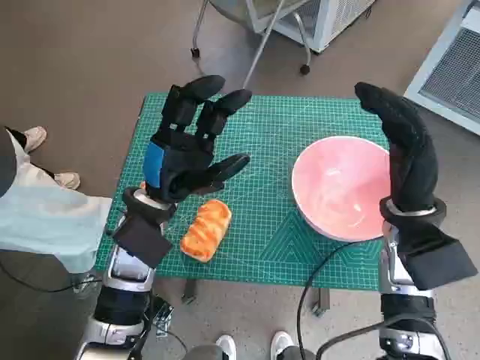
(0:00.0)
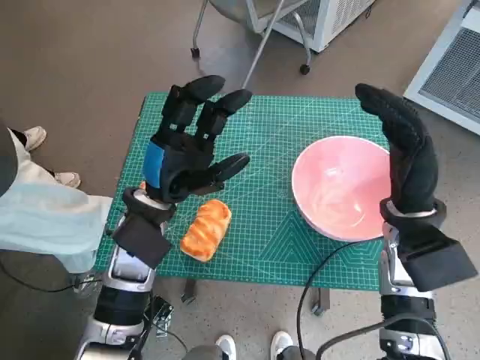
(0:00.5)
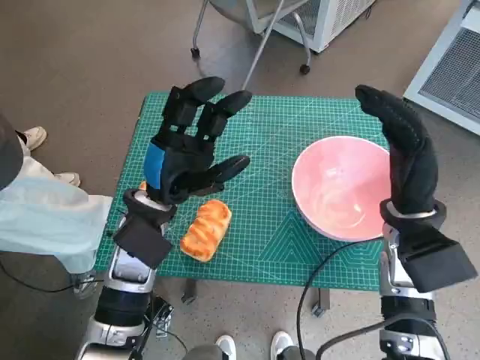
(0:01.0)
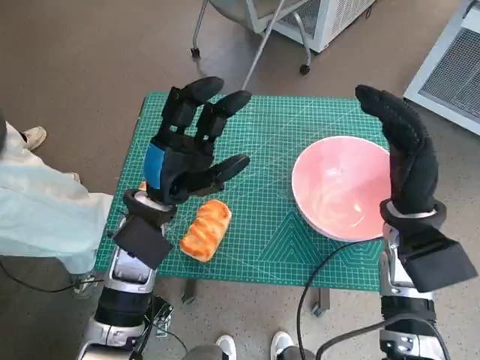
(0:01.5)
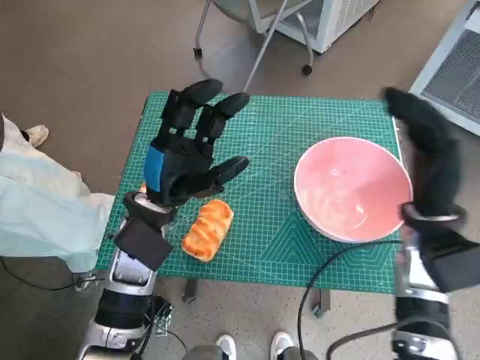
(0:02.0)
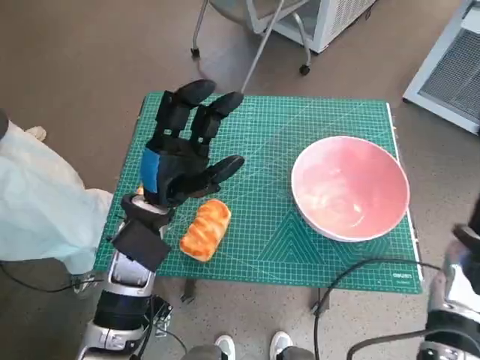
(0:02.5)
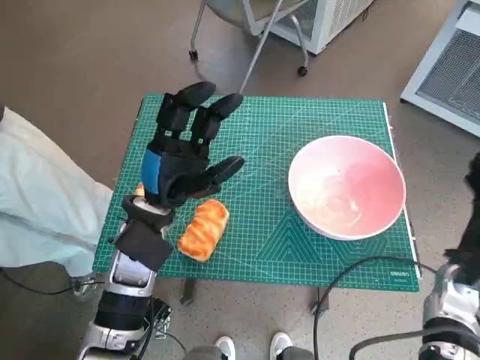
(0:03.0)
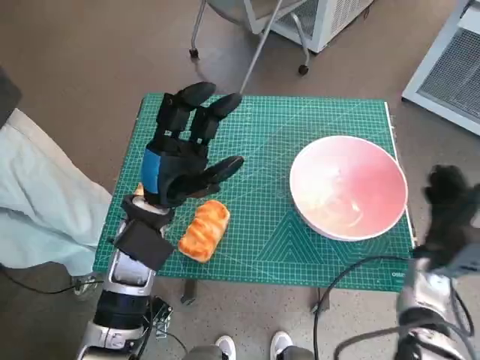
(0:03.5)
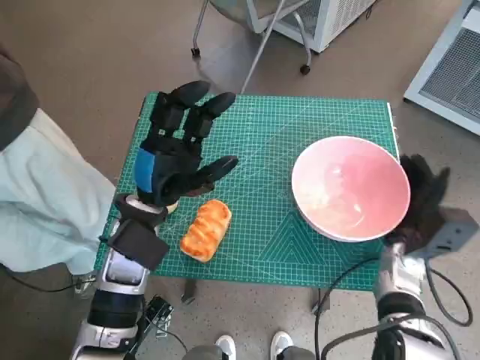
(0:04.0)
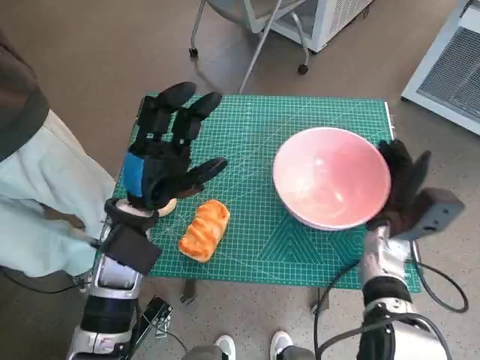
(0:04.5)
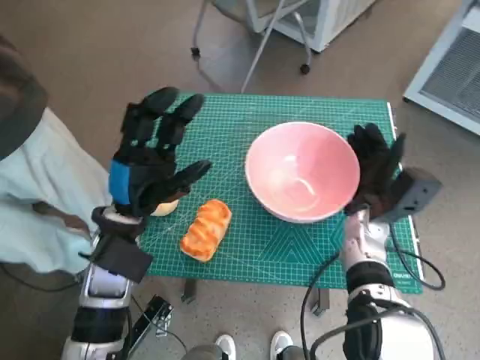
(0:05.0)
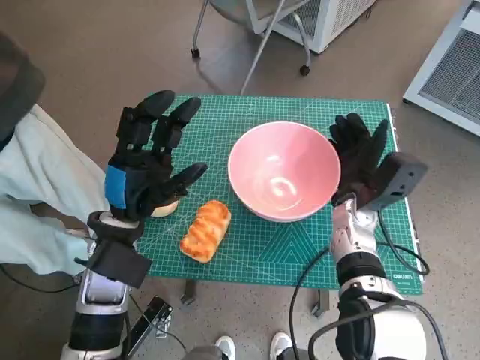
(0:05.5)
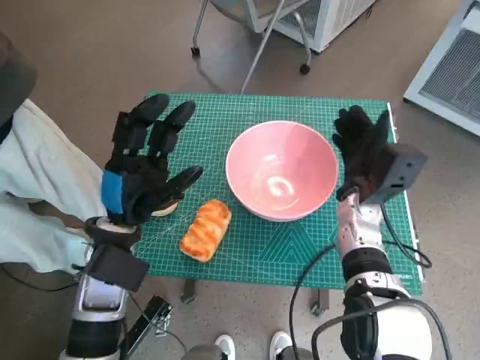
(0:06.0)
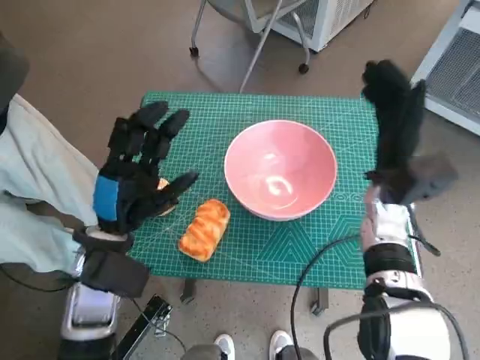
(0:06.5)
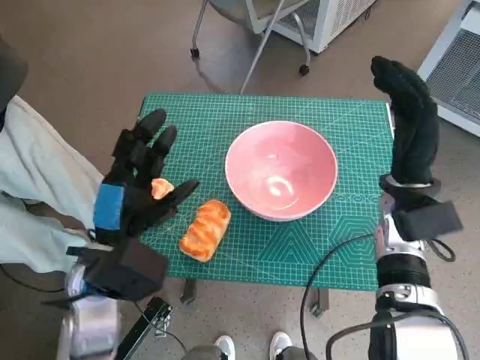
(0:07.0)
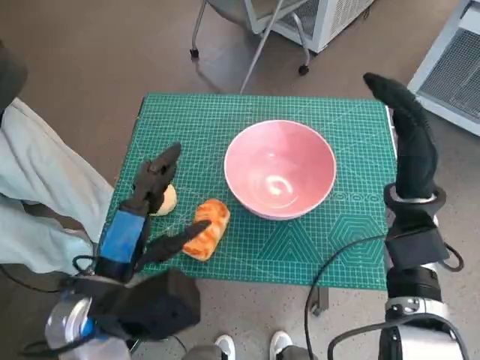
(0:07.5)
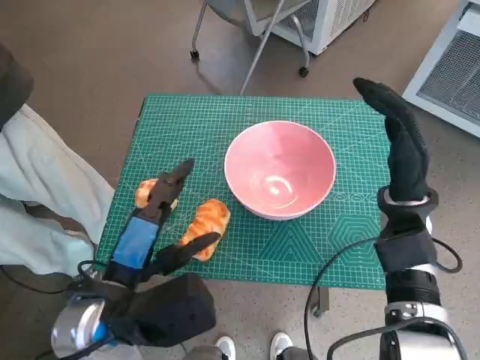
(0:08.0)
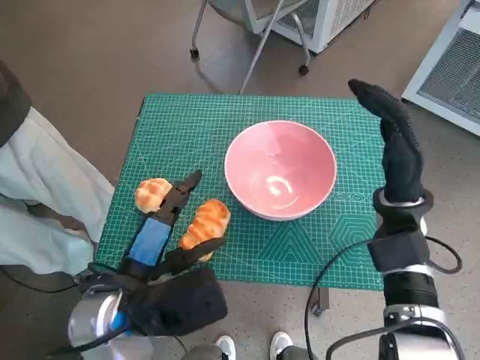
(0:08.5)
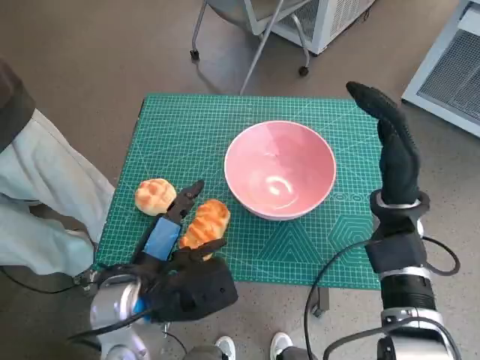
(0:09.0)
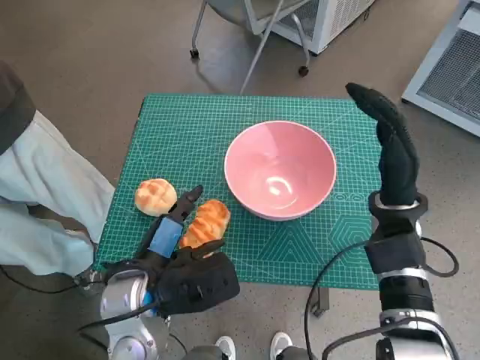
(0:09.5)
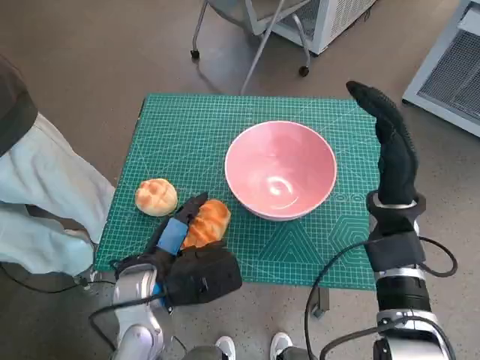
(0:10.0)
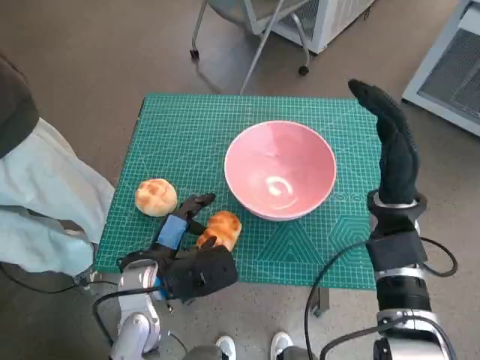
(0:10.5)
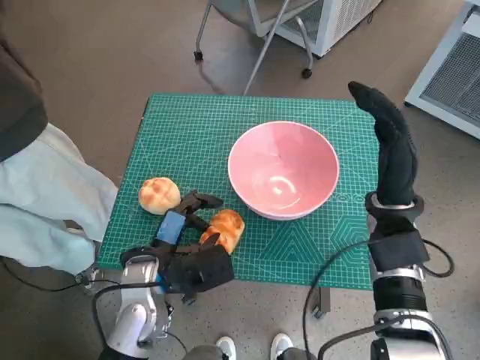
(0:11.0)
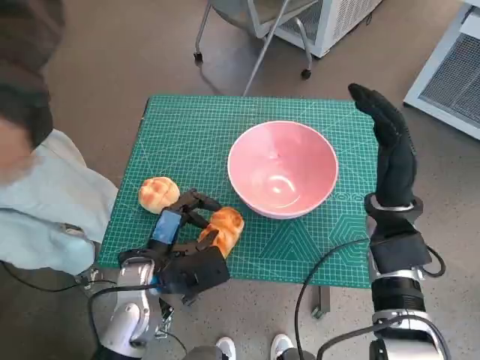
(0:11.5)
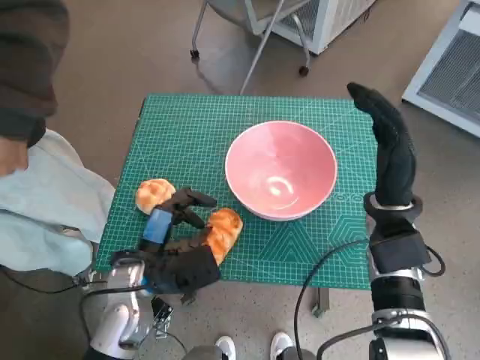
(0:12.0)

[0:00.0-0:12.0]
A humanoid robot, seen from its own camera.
Task of the whole recording: Push the bowl to the center of the table and put the bread into the bowl.
Step, 0:00.0 to 0:05.5: Move the pink bowl to the center of table with right hand.
0:02.0 to 0:04.0: The right hand travels downward by approximately 10 cm.
0:04.0 to 0:06.0: The right hand goes approximately 10 cm to the left, upward and forward.
0:06.0 to 0:08.0: The right hand moves approximately 5 cm. Meanwhile the left hand heads backward, covering roughly 10 cm.
0:08.0 to 0:10.0: The left hand goes roughly 5 cm downward.
0:10.0 to 0:12.0: The left hand moves roughly 5 cm.

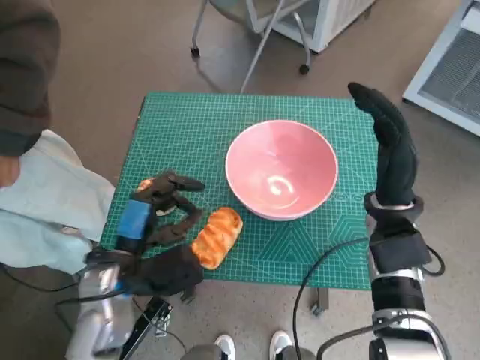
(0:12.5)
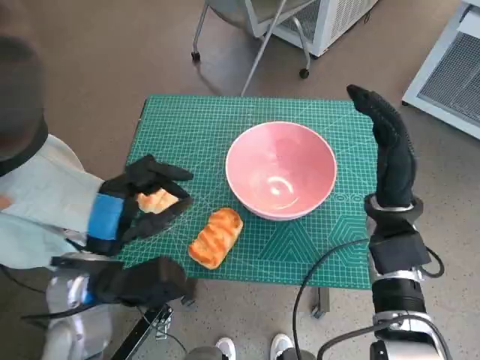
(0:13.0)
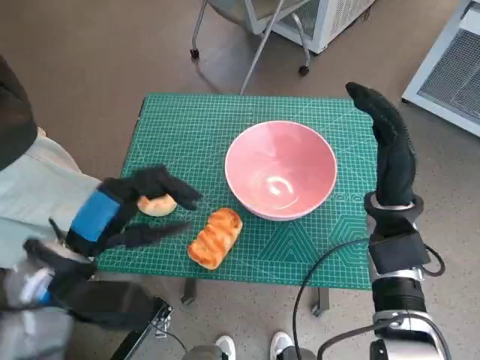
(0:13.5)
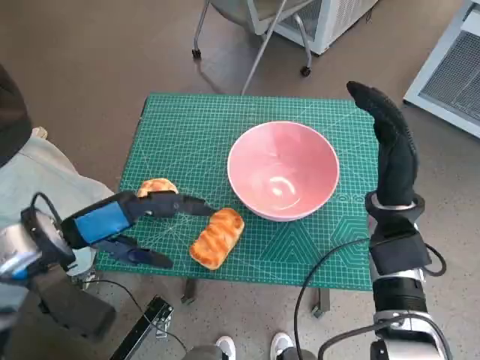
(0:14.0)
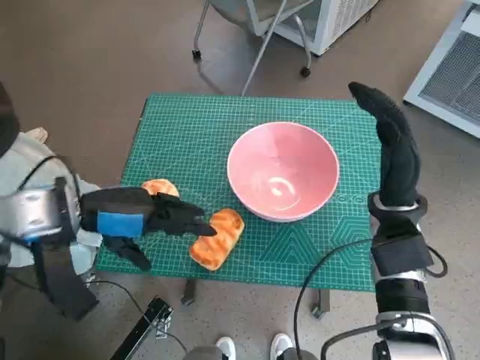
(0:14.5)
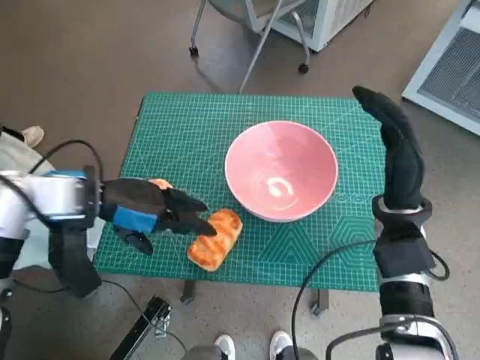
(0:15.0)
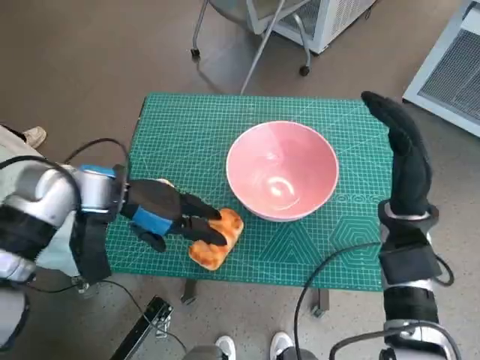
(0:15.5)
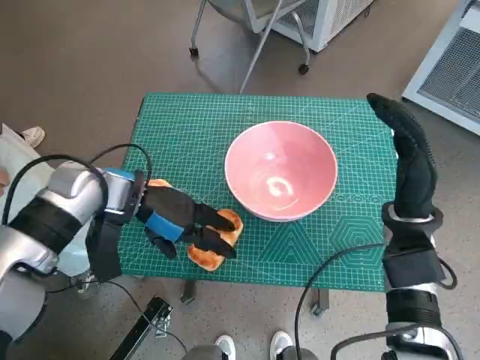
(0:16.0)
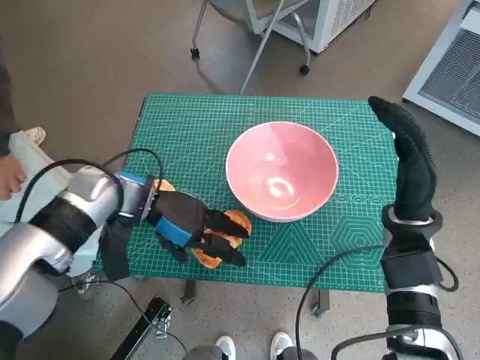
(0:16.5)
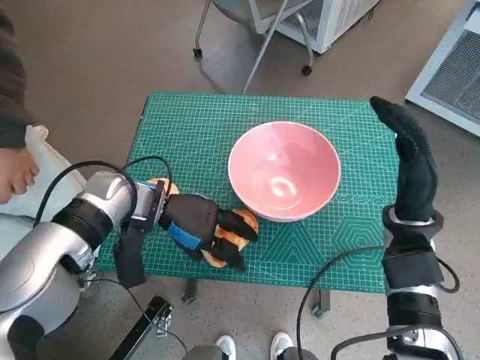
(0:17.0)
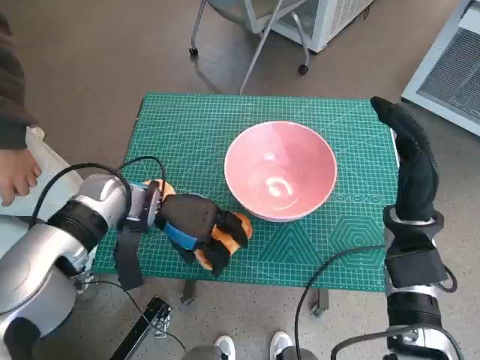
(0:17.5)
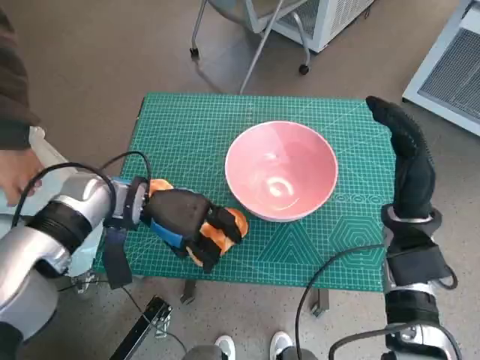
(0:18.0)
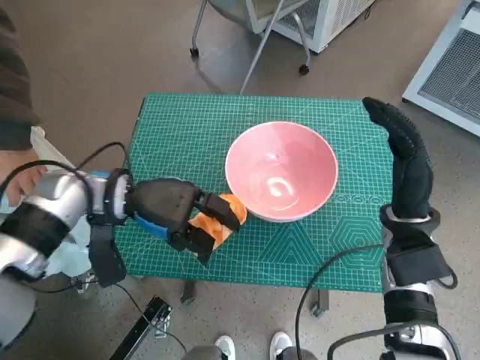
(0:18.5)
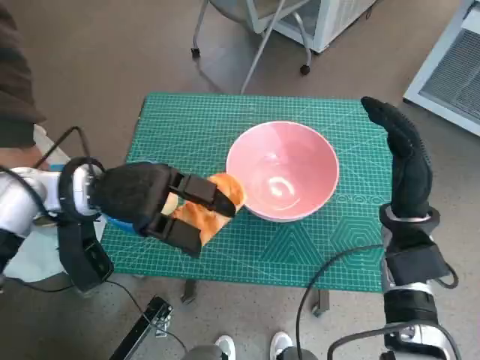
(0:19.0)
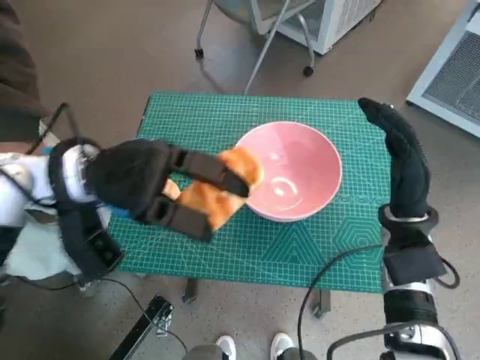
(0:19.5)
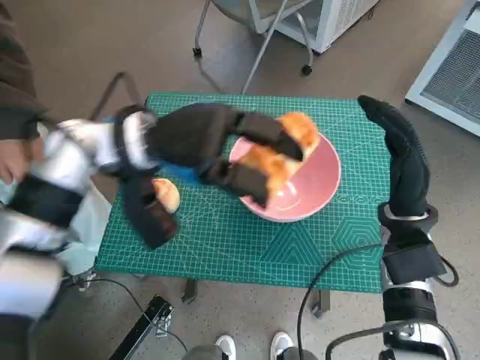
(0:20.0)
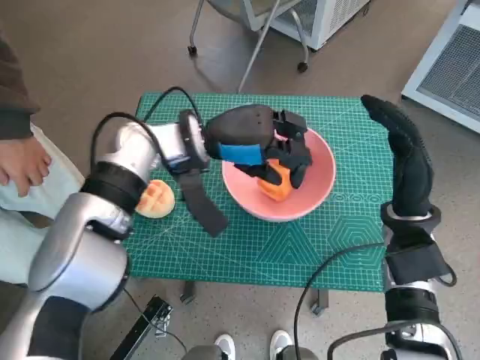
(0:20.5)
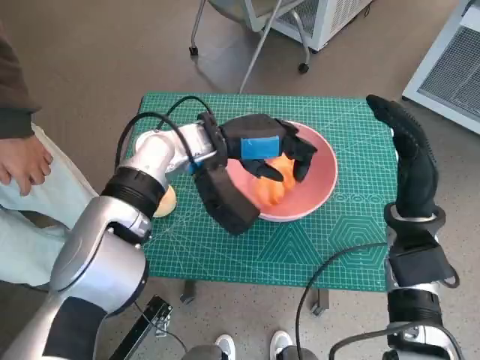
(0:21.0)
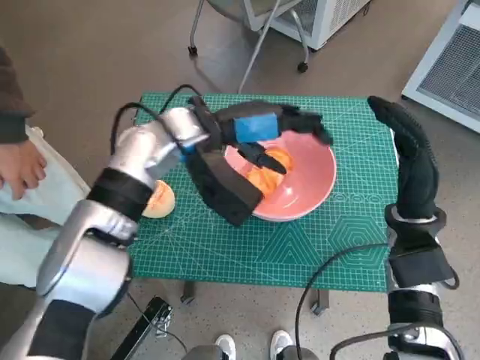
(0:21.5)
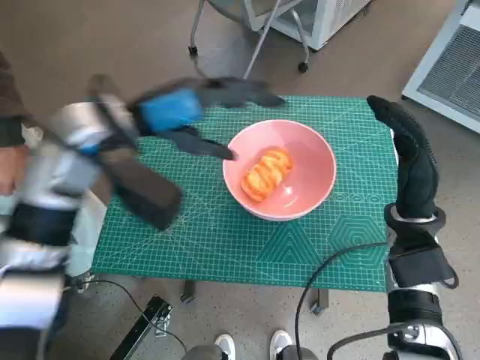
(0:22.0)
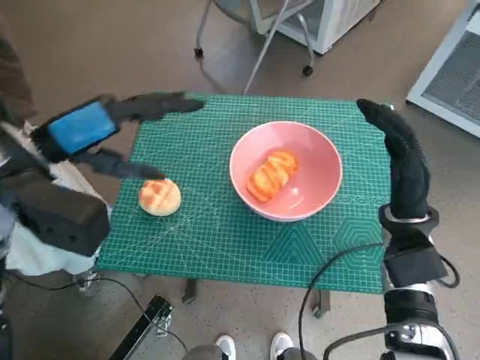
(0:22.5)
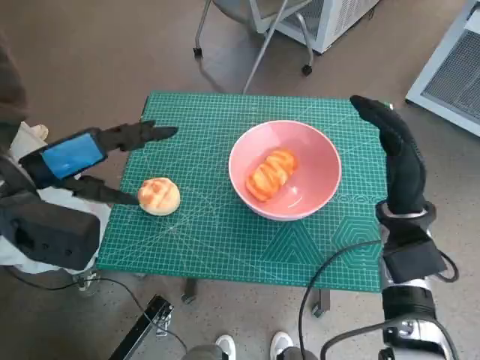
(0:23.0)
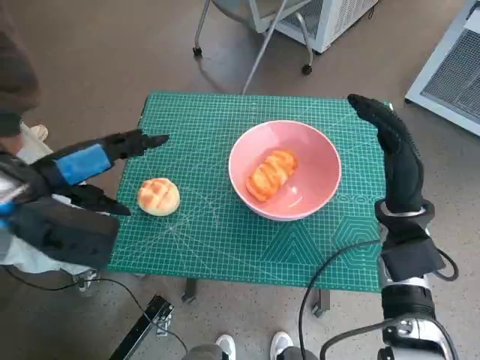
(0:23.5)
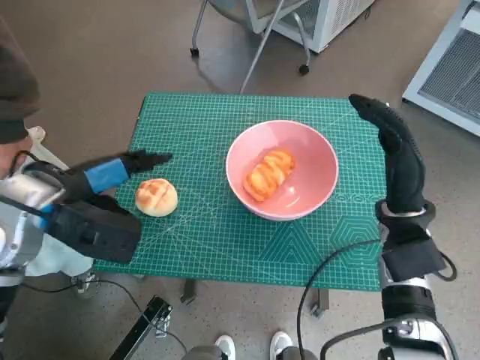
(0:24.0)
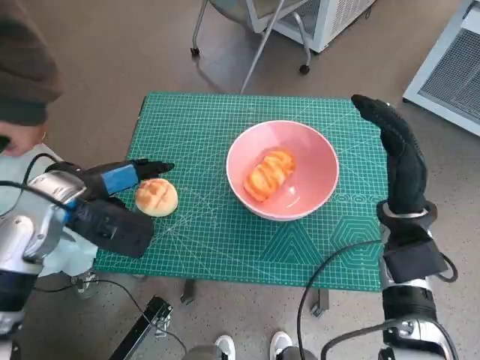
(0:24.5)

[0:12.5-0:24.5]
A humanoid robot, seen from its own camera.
Task of the whole recording: Push the bowl to the center of the table and put the bread into the bowl.
Step, 0:12.5 to 0:17.0: Grasp the long bread with left hand.
Step, 0:17.5 to 0:21.5: Place the long bread in pink bowl with left hand.
0:12.5 to 0:14.5: The left hand moves upward and to the left, about 10 cm.
0:14.5 to 0:16.5: The left hand goes about 10 cm forward, downward and to the right.
0:18.5 to 0:20.5: The left hand travels to the right and upward by some 10 cm.
0:20.5 to 0:22.5: The left hand is displaced to the left, backward and upward by roughly 15 cm.
0:22.5 to 0:24.5: The left hand shifts roughly 10 cm downward.

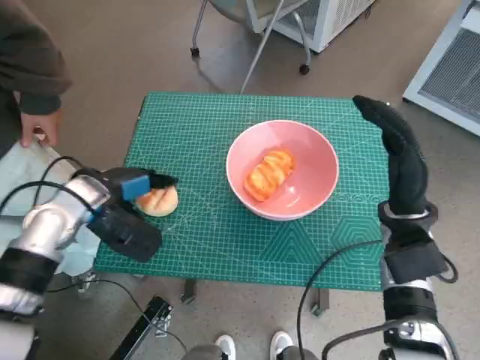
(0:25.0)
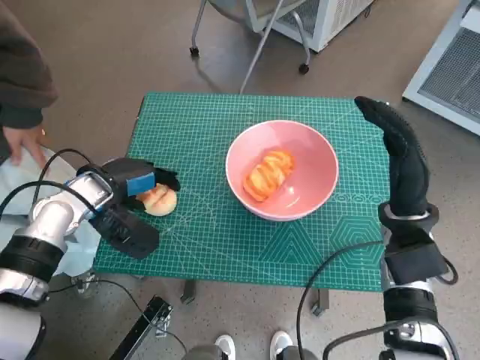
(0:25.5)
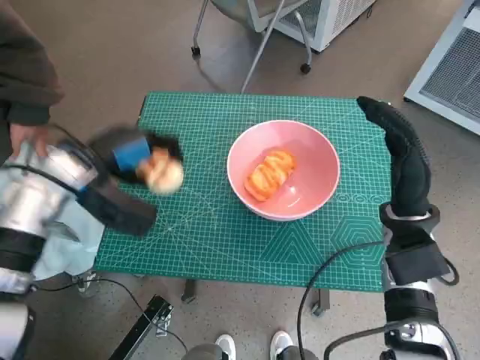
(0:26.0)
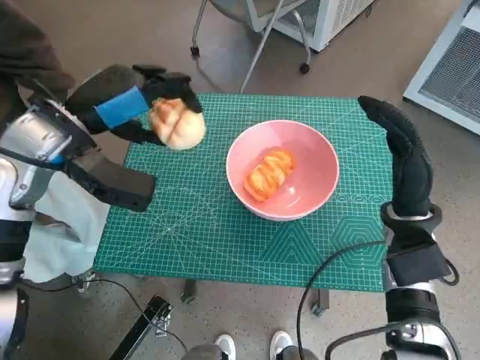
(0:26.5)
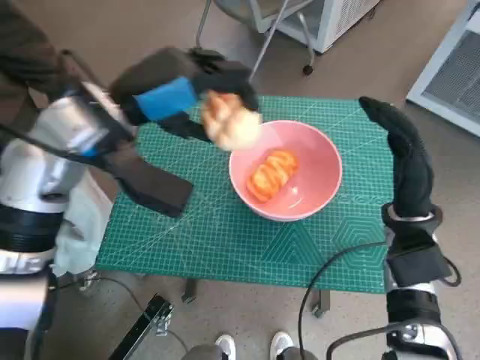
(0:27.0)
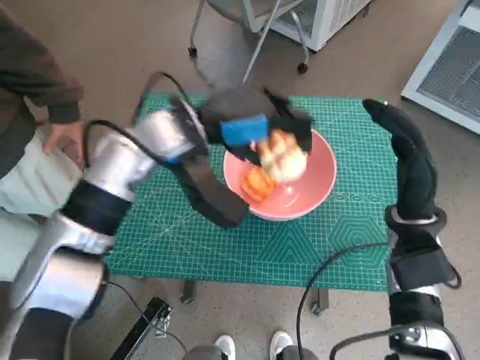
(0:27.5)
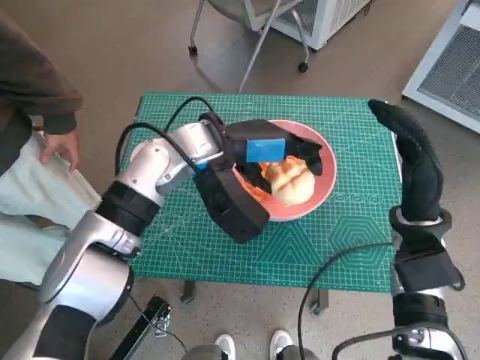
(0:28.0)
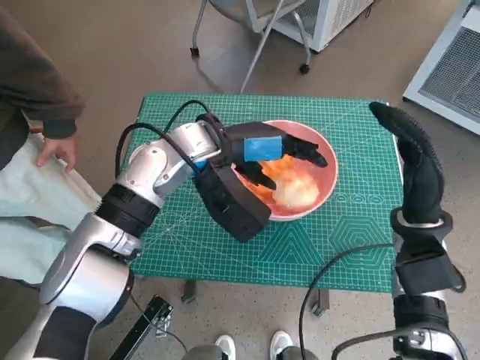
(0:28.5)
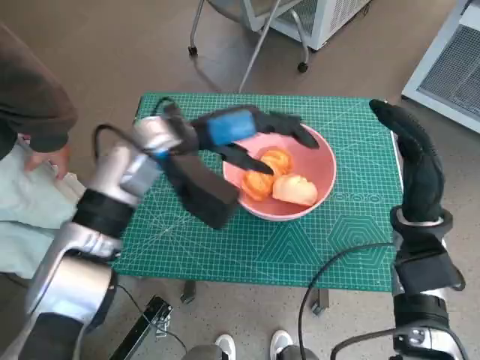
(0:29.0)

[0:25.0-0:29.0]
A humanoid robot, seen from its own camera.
Task of the whole recording: Push the bowl to the center of the table and put the bread into the bowl.
Step, 0:25.5 to 0:29.0: Place the round bread in pink bowl with left hand.
0:25.0 to 0:27.0: The left hand moves upward and to the right, approximately 15 cm.
0:27.0 to 0:29.0: The left hand moves downward and to the right, roughly 10 cm.
